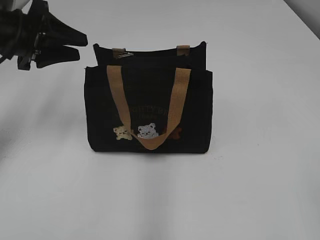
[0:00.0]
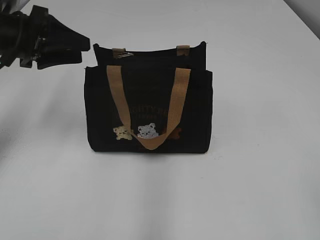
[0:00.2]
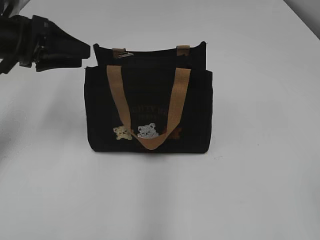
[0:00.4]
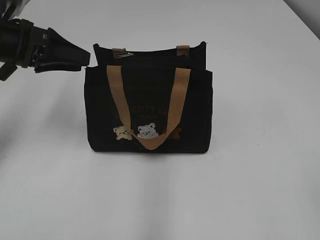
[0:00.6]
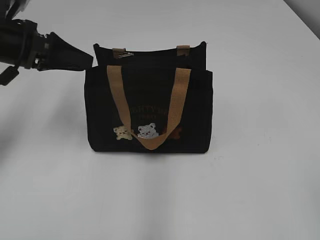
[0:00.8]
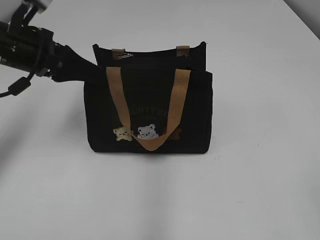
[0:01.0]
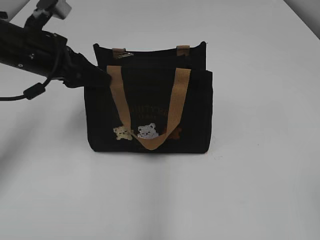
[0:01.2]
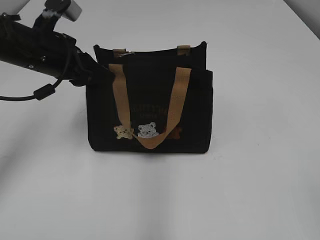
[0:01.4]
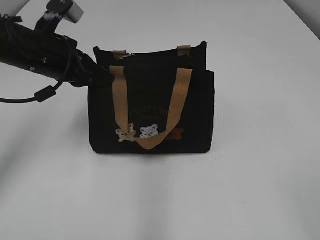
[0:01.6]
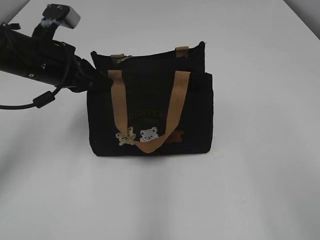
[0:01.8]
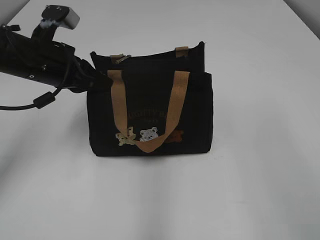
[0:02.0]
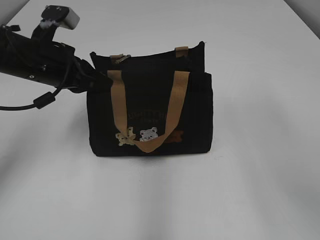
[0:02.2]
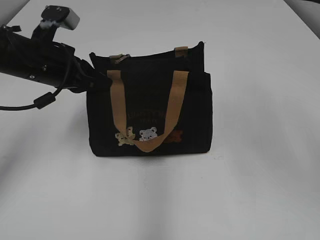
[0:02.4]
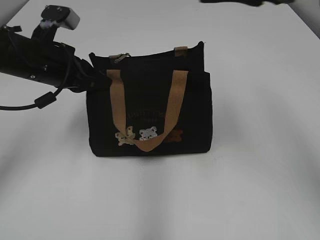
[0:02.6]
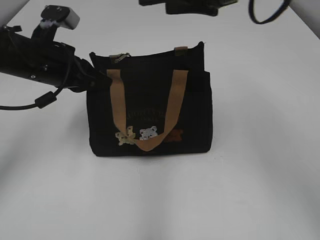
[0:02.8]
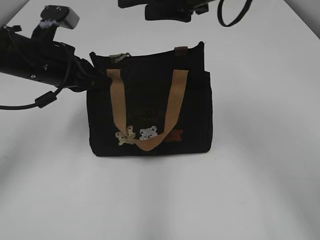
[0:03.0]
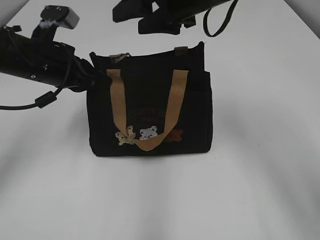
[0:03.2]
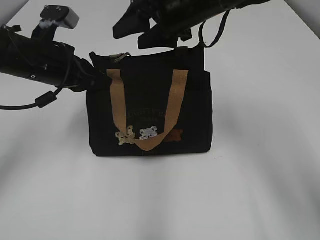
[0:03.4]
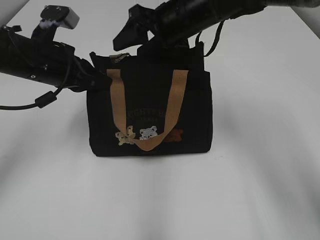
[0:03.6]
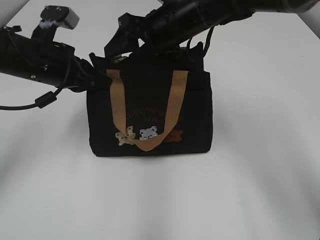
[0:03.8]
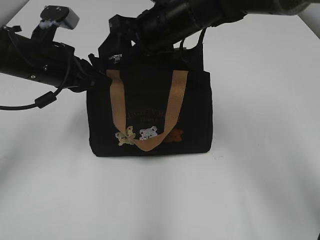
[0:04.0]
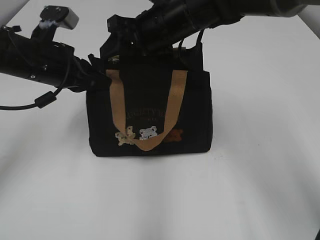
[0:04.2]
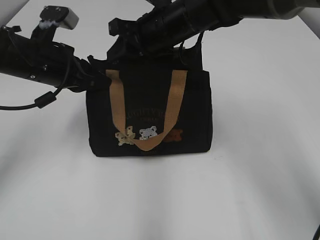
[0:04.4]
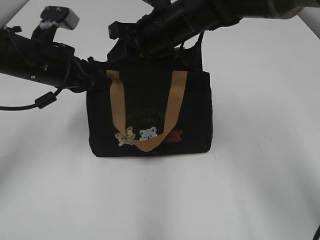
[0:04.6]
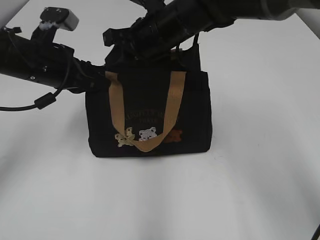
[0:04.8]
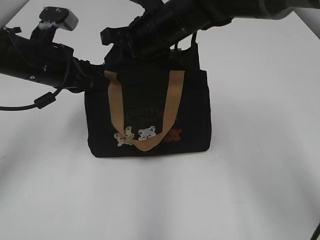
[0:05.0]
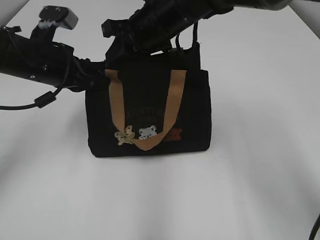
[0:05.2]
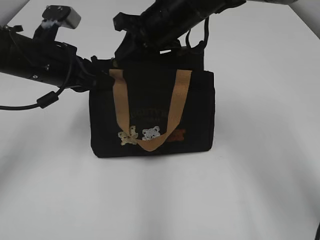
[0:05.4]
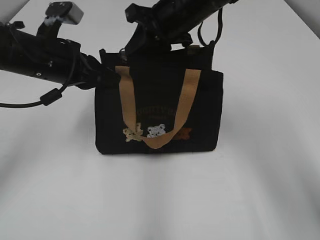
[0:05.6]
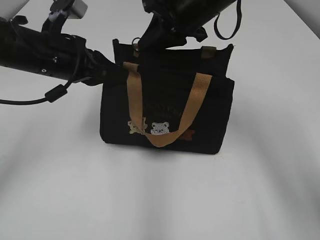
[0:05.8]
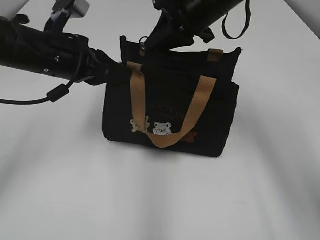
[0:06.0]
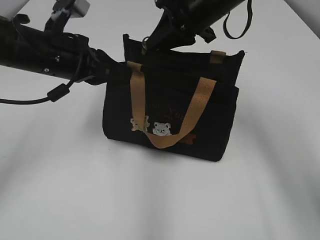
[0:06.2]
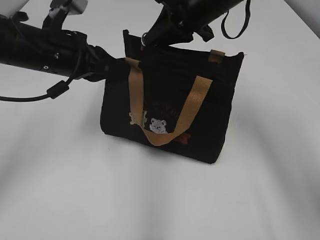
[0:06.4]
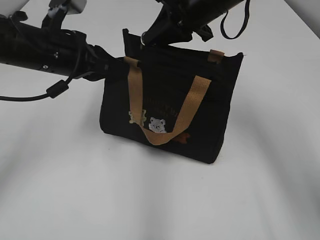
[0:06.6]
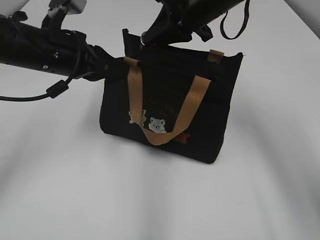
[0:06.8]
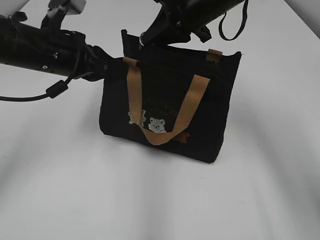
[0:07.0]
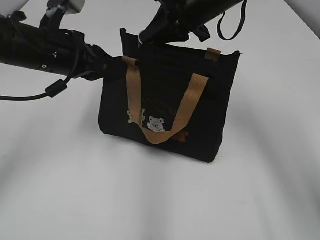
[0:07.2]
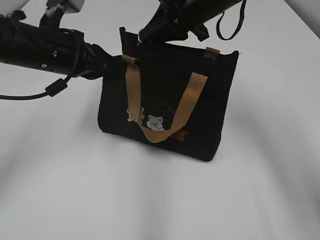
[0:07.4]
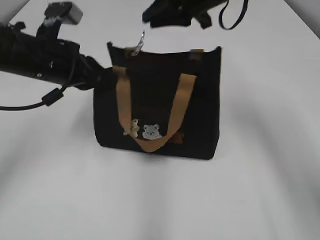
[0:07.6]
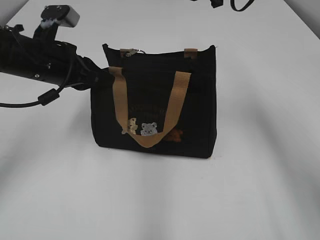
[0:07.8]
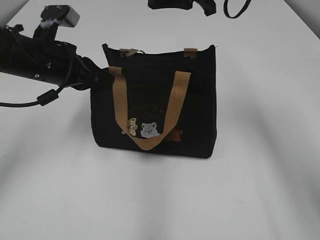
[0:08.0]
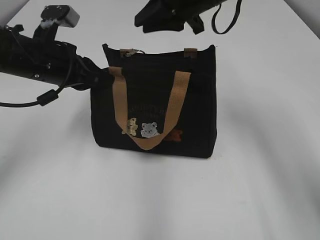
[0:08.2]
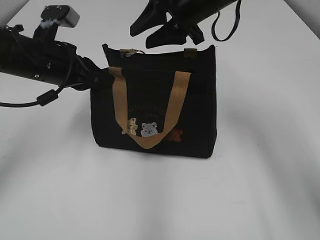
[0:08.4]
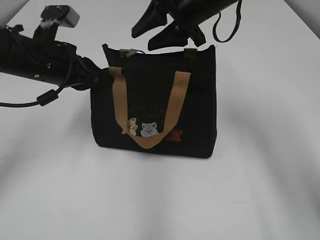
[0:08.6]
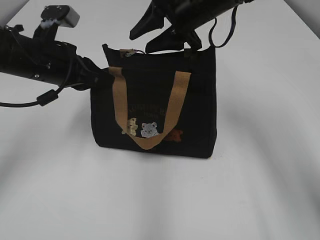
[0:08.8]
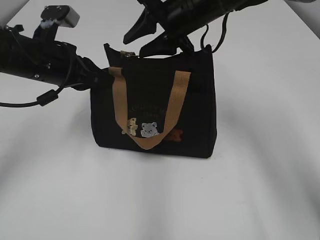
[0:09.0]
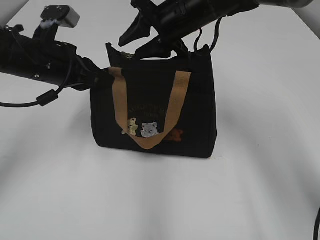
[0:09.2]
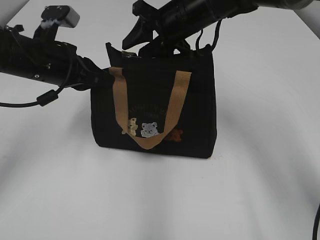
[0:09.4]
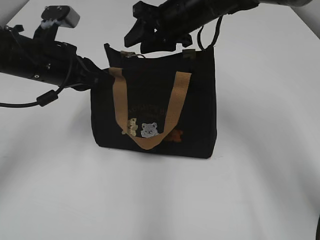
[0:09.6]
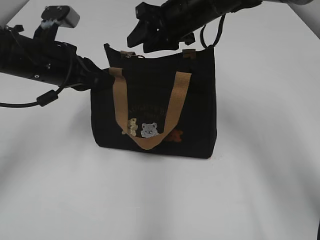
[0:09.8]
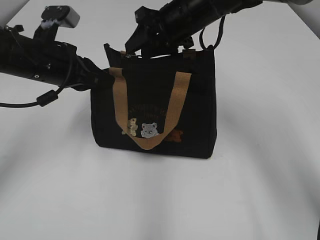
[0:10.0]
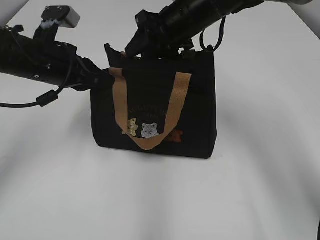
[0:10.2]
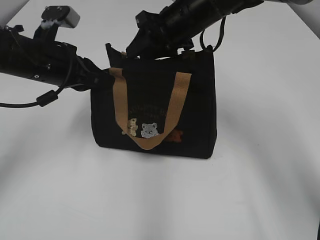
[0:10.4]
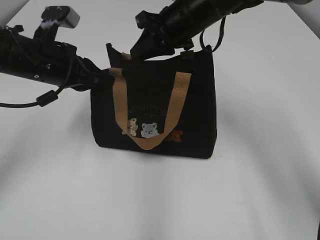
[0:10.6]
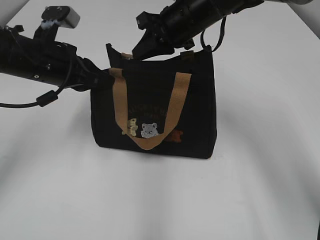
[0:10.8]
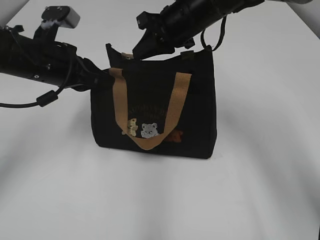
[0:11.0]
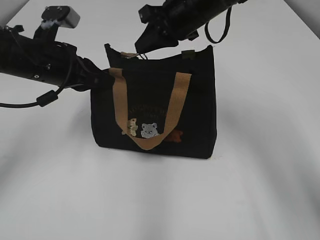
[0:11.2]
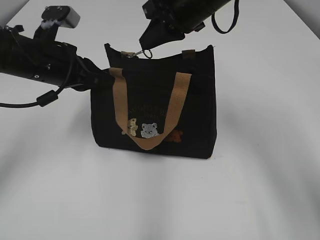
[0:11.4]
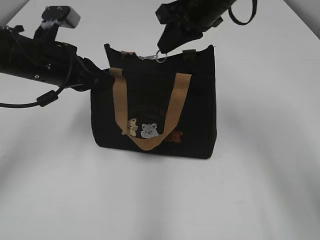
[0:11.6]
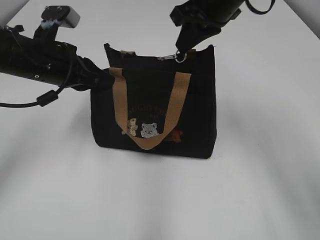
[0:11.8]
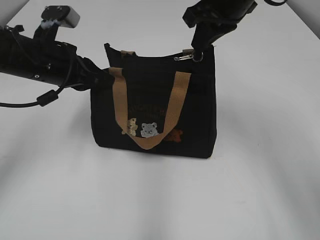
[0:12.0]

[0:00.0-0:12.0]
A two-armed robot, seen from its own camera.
0:00.0 to 0:01.6: The left gripper is displaced to the right by about 5 cm, and closes up.
0:01.6 to 0:03.0: The right gripper heads forward and to the left, covering approximately 40 cm.
0:03.0 to 0:04.4: The right gripper heads downward and to the left, covering approximately 10 cm, and closes.
0:04.4 to 0:06.0: The right gripper heads to the right, covering about 10 cm.
0:06.0 to 0:07.6: The grippers stay close to where they were, moving slightly.
0:07.6 to 0:09.0: The right gripper ends up roughly 5 cm from where it was, and opens up.
0:10.4 to 0:12.0: The right gripper goes some 10 cm upward and to the right, and closes up.

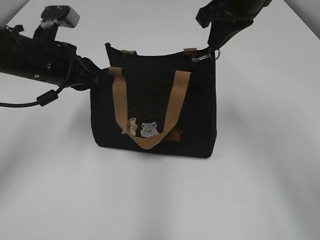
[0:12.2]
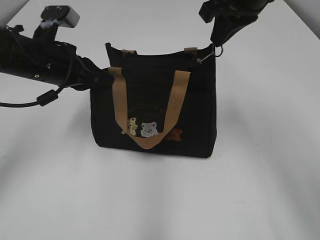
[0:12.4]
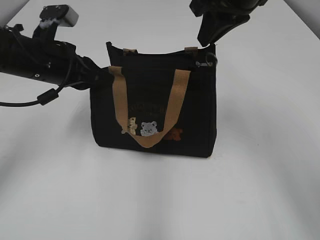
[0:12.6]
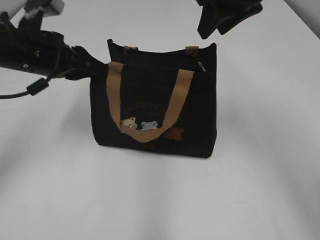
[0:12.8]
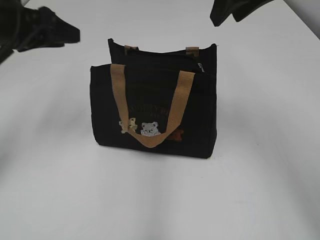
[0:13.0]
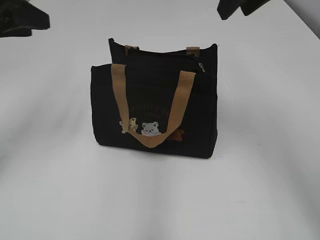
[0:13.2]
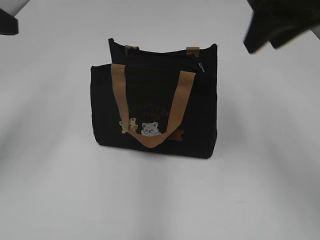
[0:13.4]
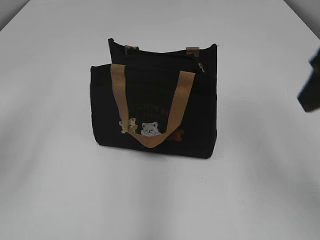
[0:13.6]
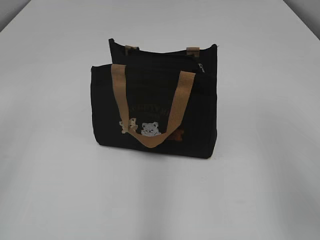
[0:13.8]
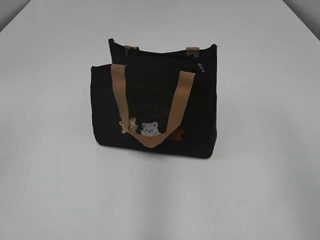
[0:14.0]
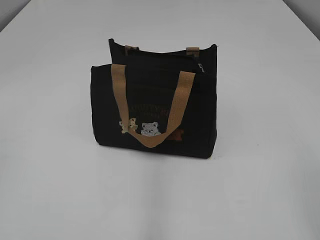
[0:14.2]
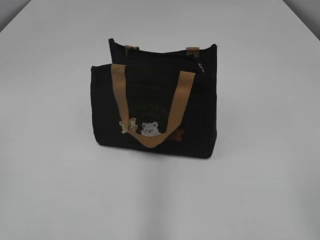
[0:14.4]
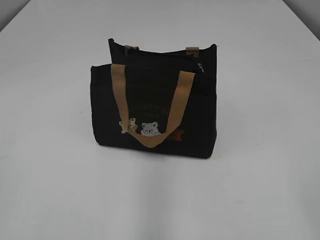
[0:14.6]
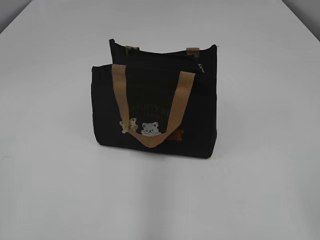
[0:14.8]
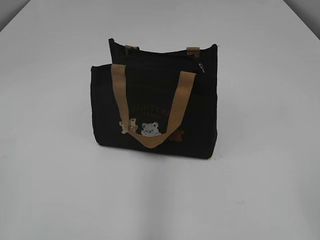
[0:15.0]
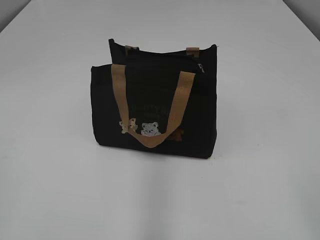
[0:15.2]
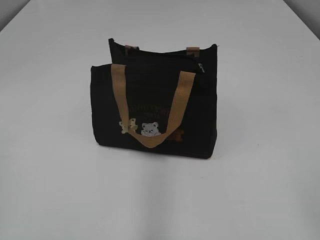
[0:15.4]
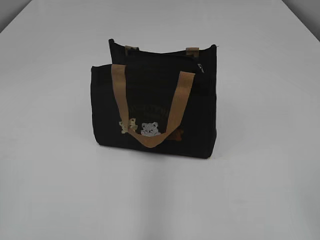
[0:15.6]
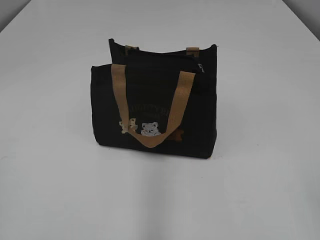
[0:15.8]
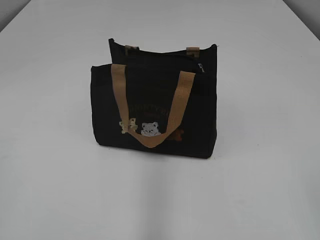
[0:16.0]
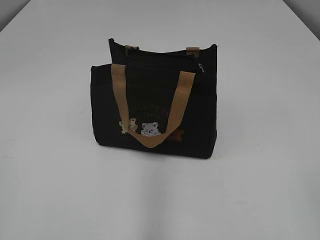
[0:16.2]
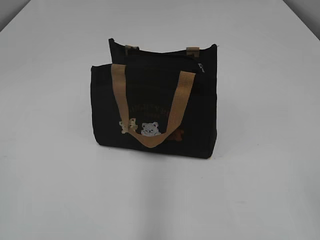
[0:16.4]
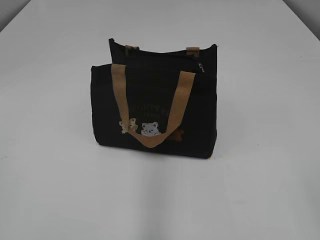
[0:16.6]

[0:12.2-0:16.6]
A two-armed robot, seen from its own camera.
0:12.2 to 0:13.6: The left gripper is displaced upward, backward and to the left by some 20 cm, and opens. The right gripper goes some 15 cm backward, and opens its fingers.
0:13.6 to 0:15.2: The right gripper is displaced backward by about 20 cm.

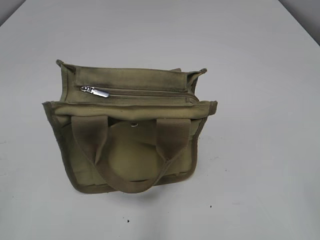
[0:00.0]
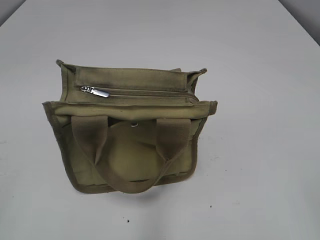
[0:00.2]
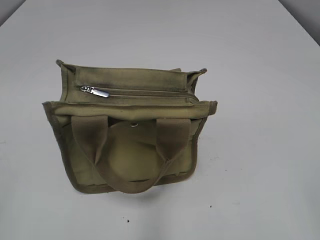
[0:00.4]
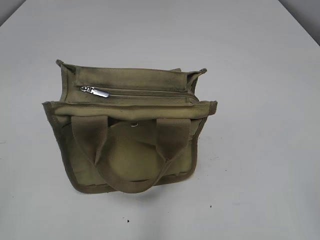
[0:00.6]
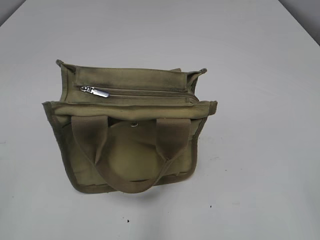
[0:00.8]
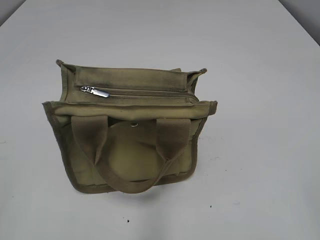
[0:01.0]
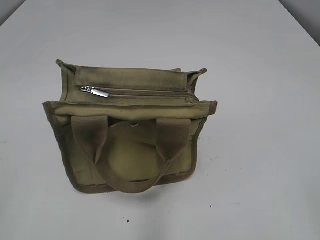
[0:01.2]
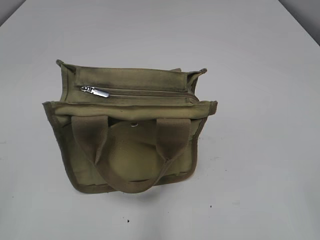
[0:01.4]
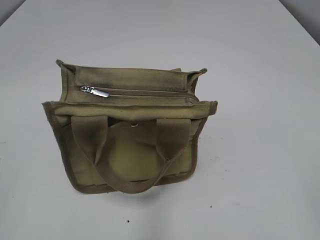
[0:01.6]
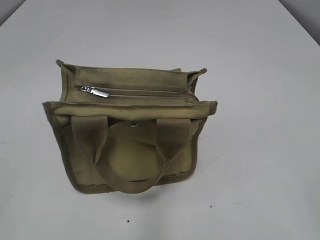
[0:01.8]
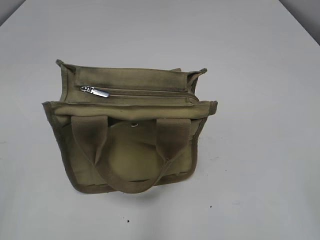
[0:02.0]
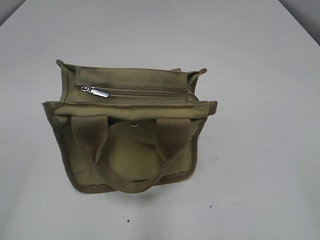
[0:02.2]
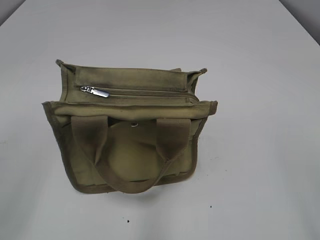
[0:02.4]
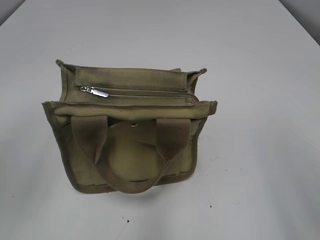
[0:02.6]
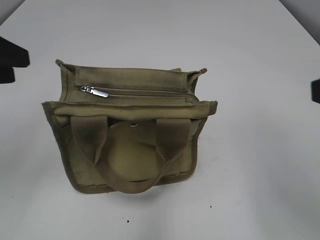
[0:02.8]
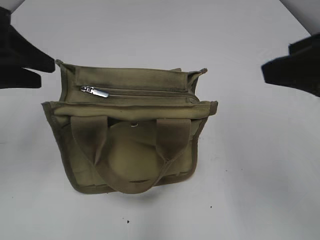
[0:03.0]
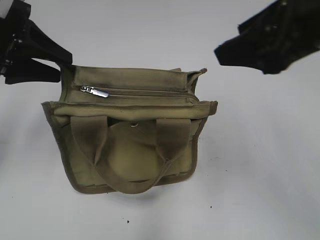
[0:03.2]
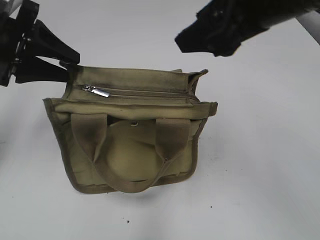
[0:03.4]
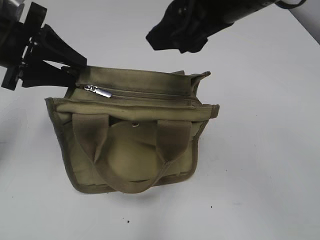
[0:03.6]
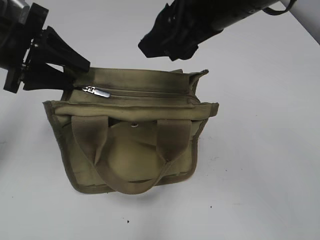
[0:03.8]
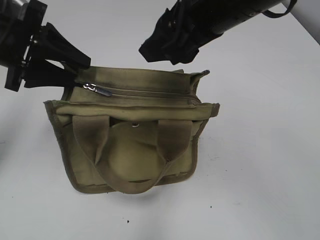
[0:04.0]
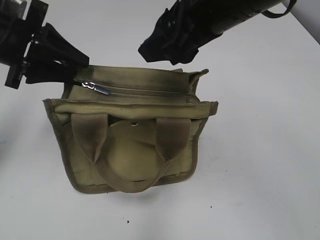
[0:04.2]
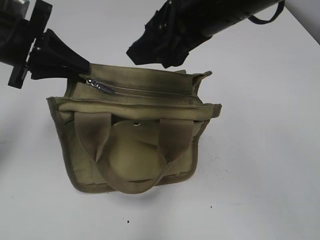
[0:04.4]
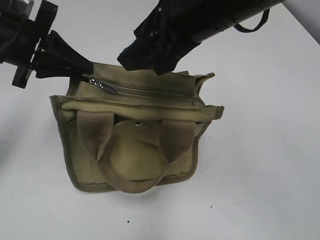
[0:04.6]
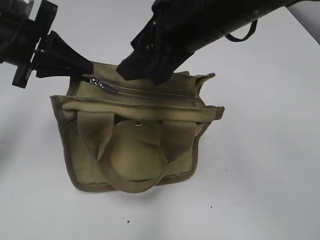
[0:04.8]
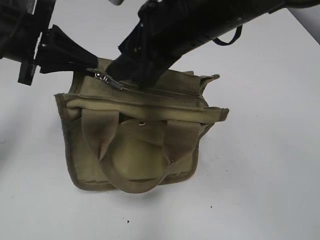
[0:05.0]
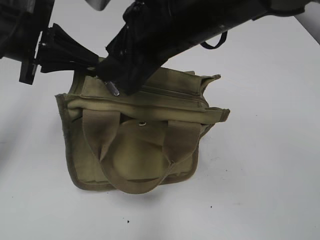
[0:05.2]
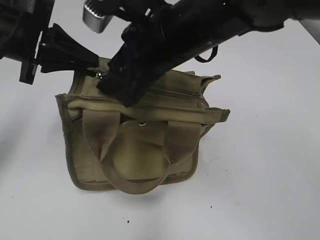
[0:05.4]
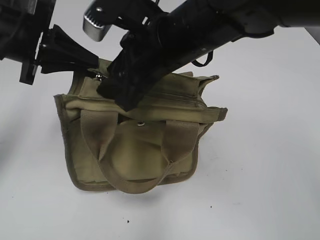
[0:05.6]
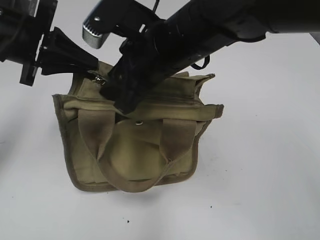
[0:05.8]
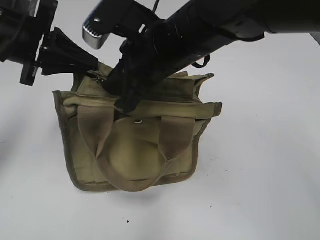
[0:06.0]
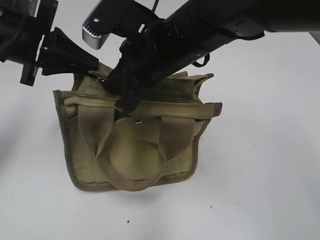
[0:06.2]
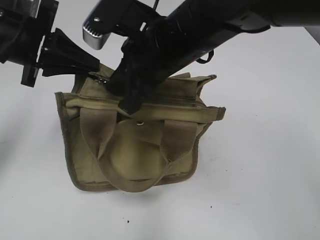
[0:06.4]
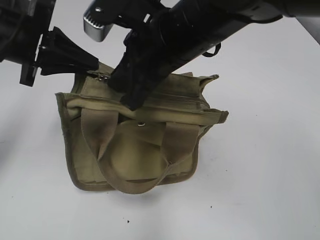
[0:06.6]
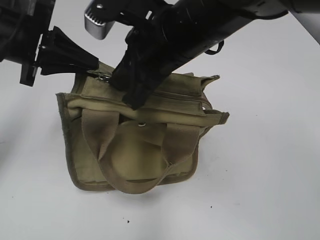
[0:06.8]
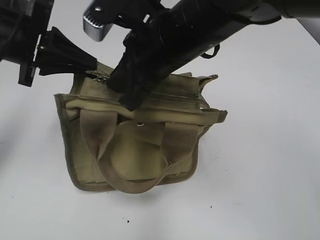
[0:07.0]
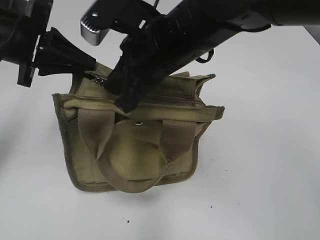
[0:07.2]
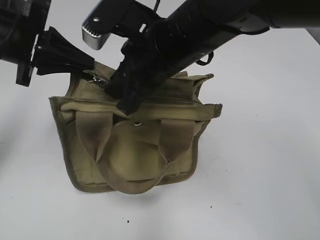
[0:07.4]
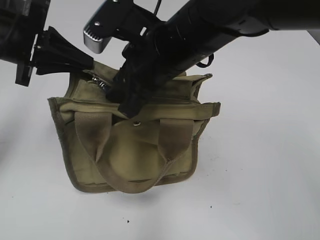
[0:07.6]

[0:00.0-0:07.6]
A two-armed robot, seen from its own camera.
0:01.6 to 0:03.0: The left gripper goes approximately 25 cm forward; the right gripper travels forward and to the left by approximately 20 cm.
0:03.0 to 0:04.6: The left gripper shifts by approximately 5 cm, and closes its fingers; the right gripper shifts about 15 cm to the left and forward.
0:04.6 to 0:06.0: The right gripper goes roughly 5 cm downward, and closes its fingers.
0:06.0 to 0:07.6: The grippers stay close to where they were, moving slightly.
